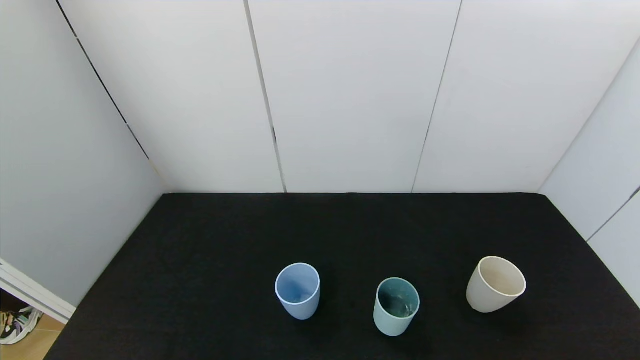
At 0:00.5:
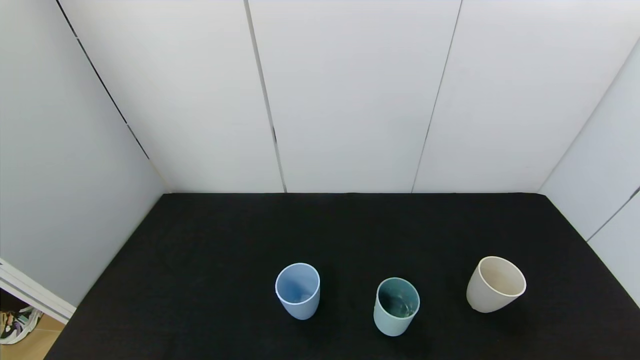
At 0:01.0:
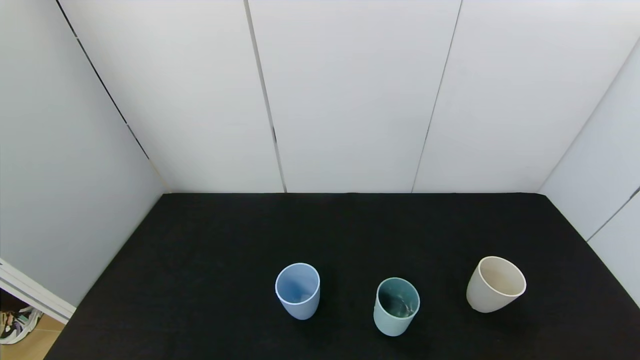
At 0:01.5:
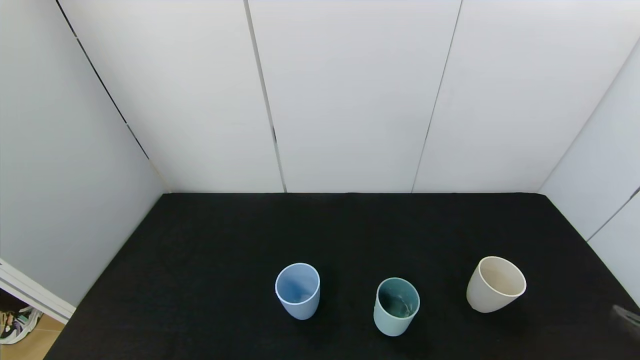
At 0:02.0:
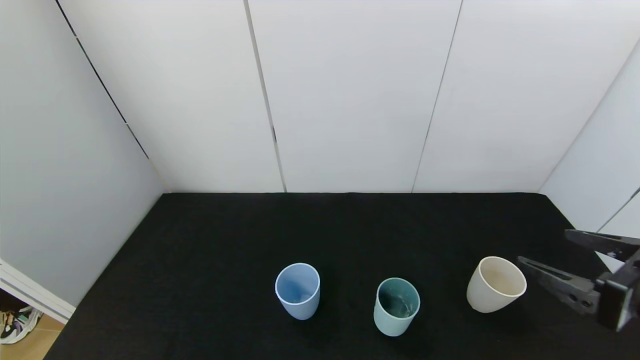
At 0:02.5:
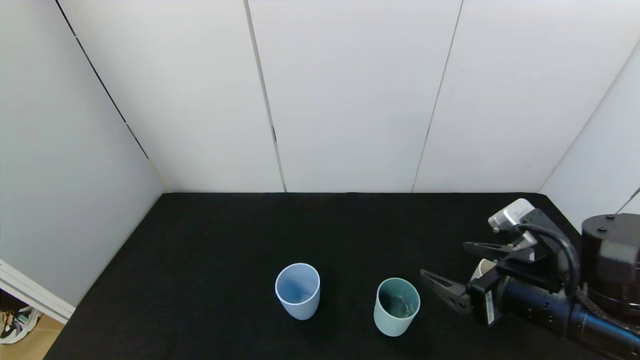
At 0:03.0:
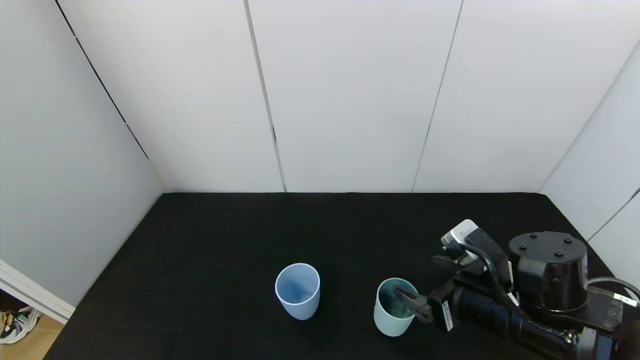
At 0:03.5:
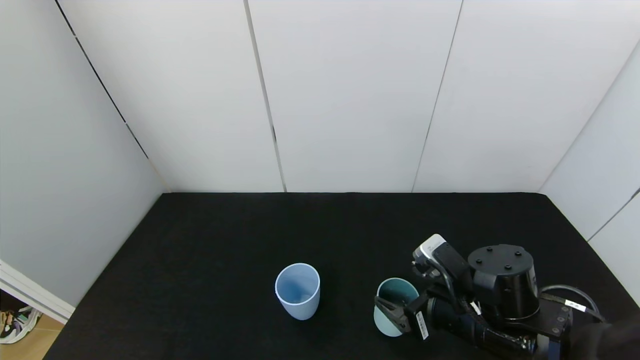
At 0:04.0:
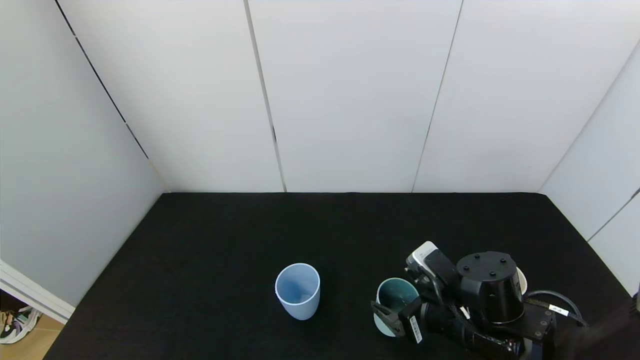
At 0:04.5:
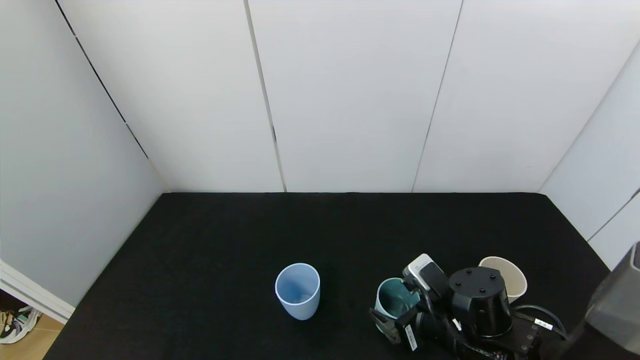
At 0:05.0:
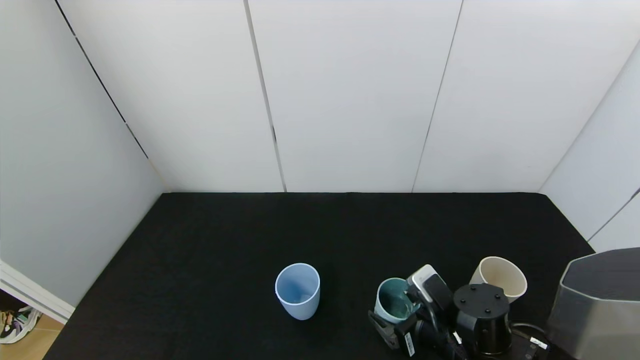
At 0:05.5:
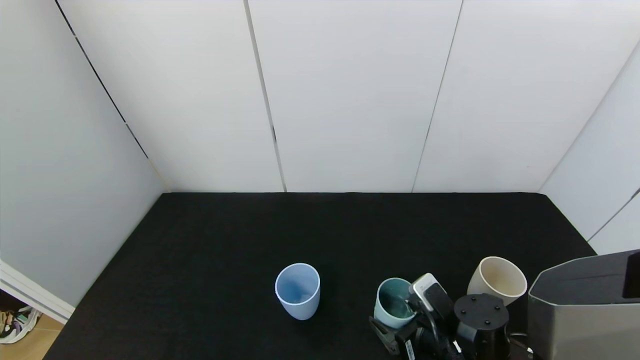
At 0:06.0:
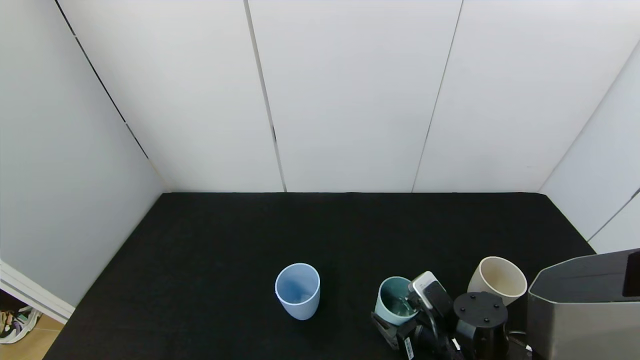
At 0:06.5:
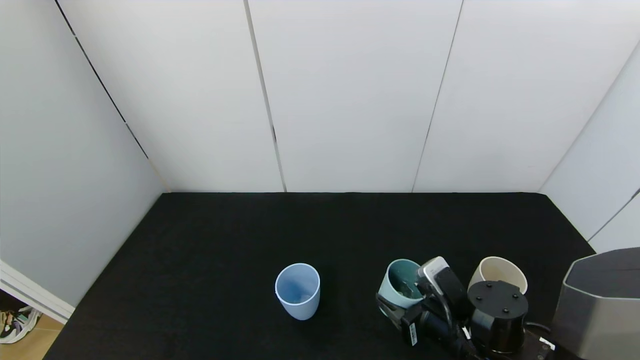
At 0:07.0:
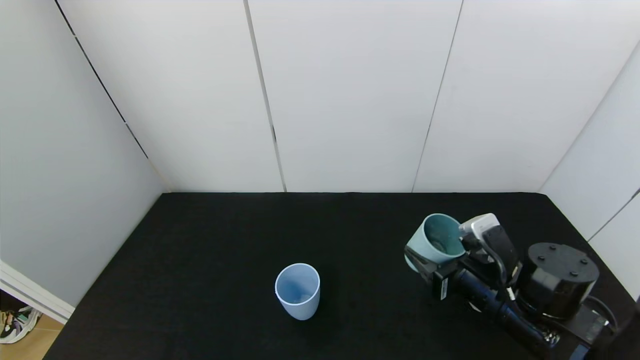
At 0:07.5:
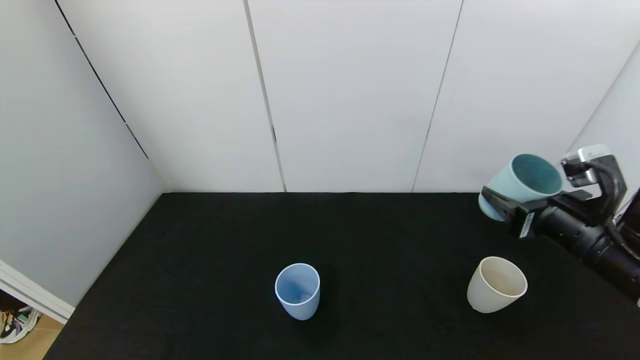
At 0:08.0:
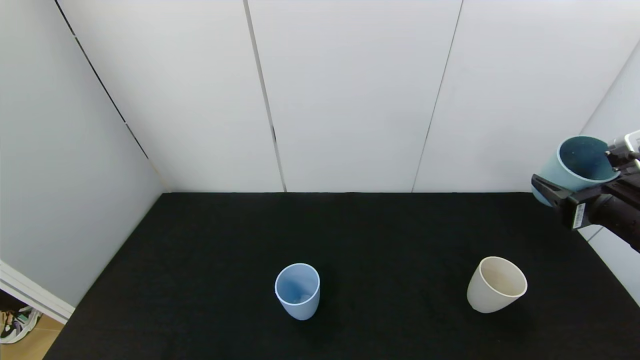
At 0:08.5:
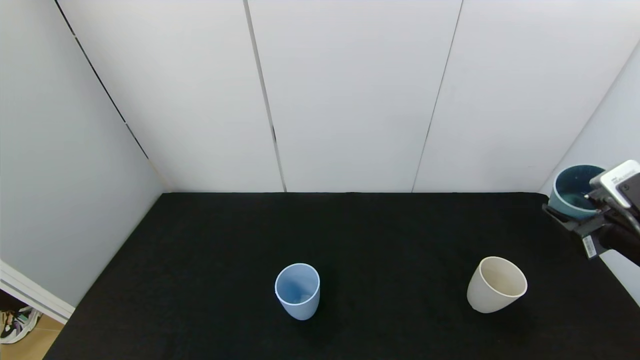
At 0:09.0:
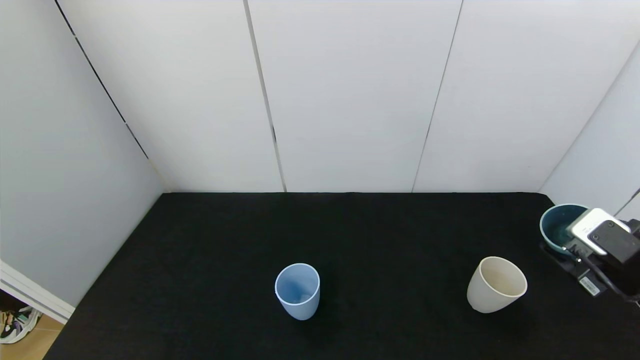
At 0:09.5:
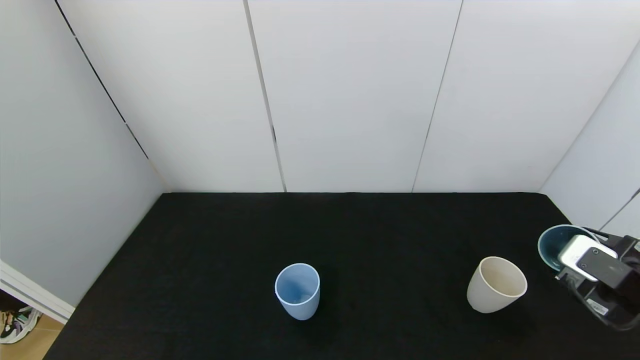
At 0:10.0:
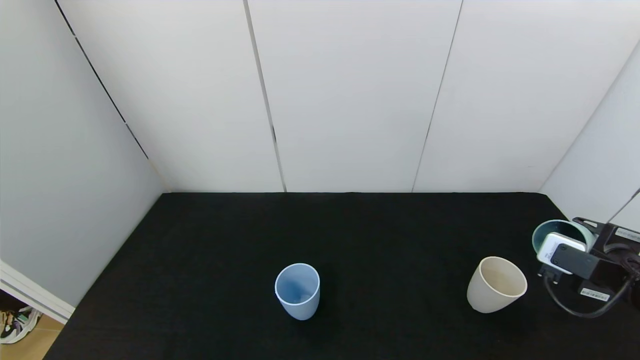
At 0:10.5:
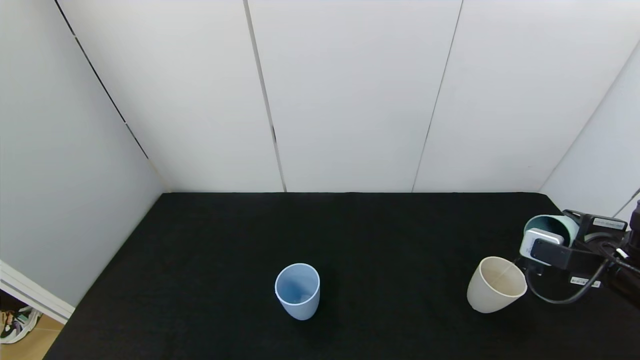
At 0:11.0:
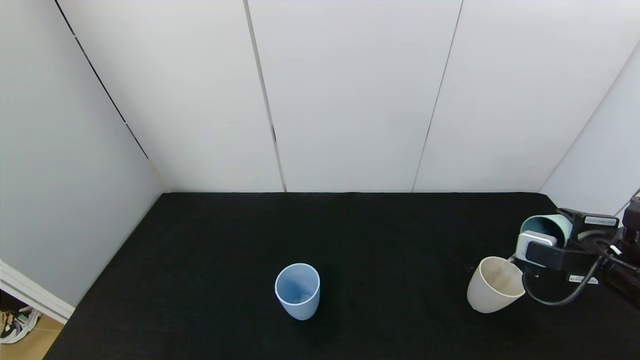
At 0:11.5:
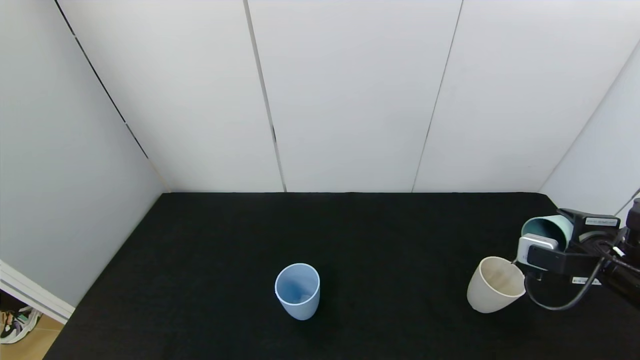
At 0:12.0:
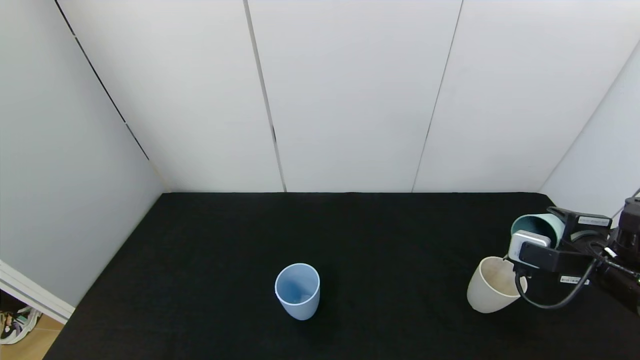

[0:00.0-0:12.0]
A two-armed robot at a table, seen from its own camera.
Task of the whole recording: use the gripper to pour the water into the other two cups on black table.
Step, 0:00.0 to 0:06.0: Grasp the green cup with the right gripper.
0:00.0 to 0:02.0: The right gripper shifts roughly 20 cm forward and upward.
0:02.0 to 0:04.0: The right gripper goes roughly 20 cm to the left, downward and forward.
0:04.0 to 0:06.0: The right gripper moves downward, approximately 5 cm, and closes its fingers.
0:06.0 to 0:08.0: The right gripper moves upward and to the right, approximately 25 cm, and closes its fingers.
0:08.0 to 0:10.0: The right gripper is displaced downward by roughly 5 cm.
0:10.0 to 0:12.0: The grippers move only a little.

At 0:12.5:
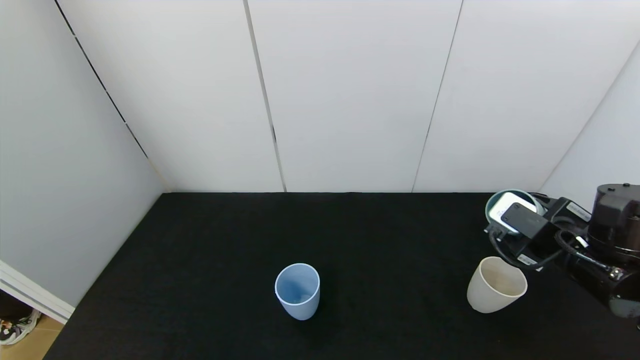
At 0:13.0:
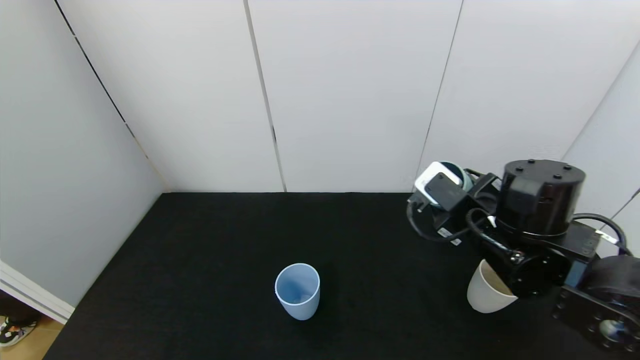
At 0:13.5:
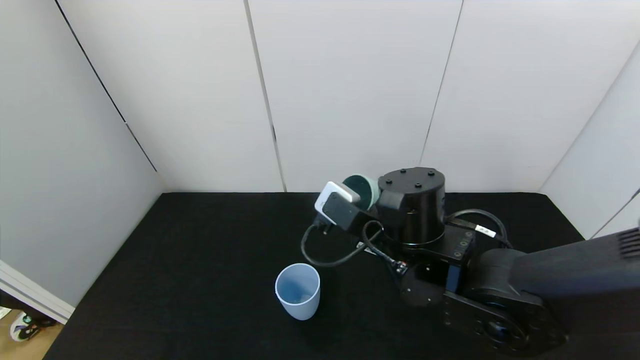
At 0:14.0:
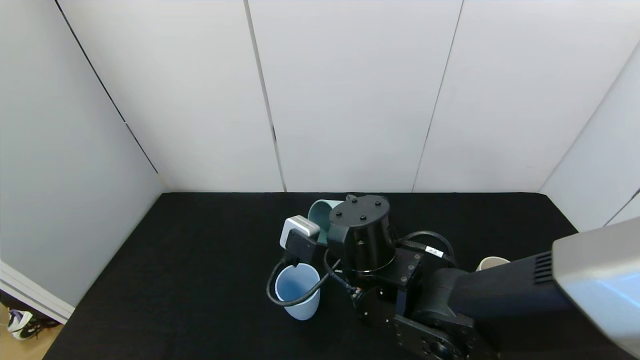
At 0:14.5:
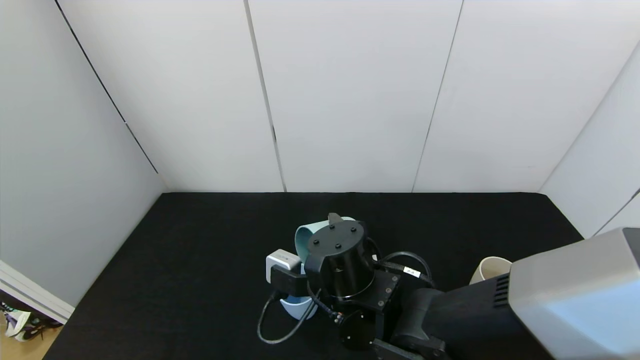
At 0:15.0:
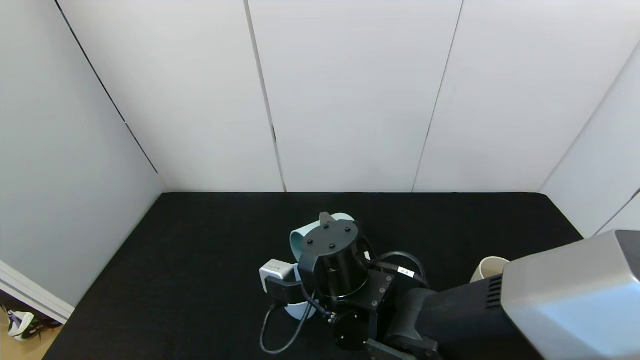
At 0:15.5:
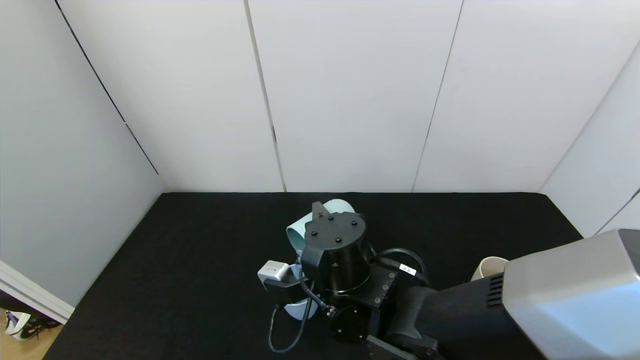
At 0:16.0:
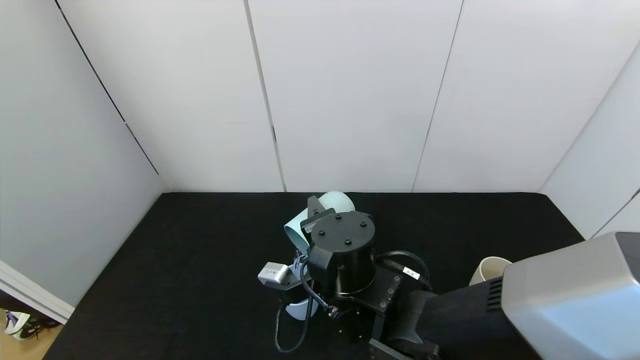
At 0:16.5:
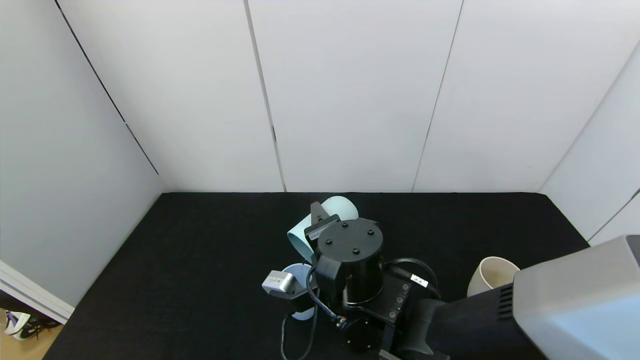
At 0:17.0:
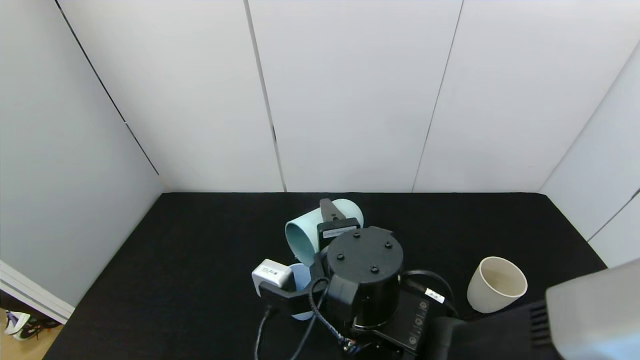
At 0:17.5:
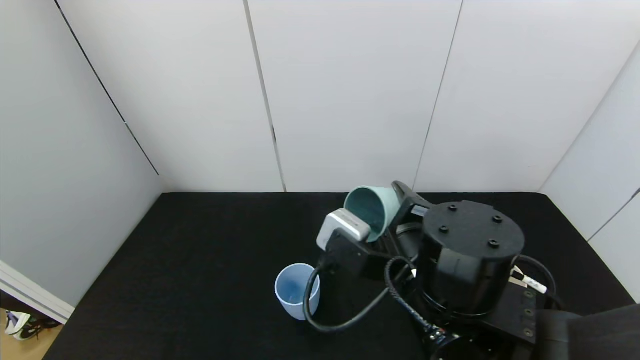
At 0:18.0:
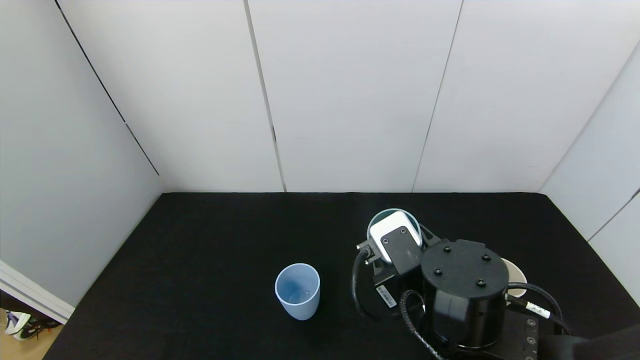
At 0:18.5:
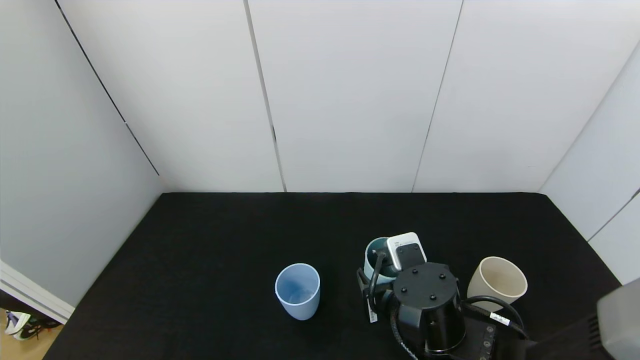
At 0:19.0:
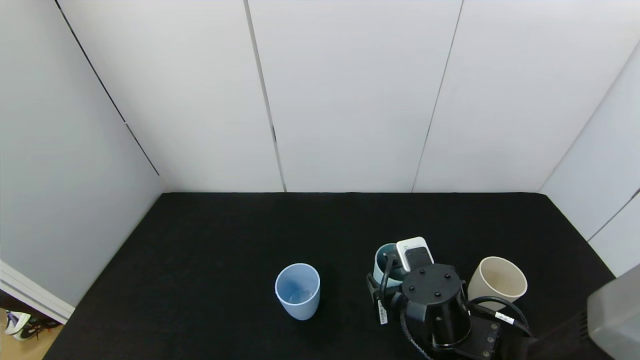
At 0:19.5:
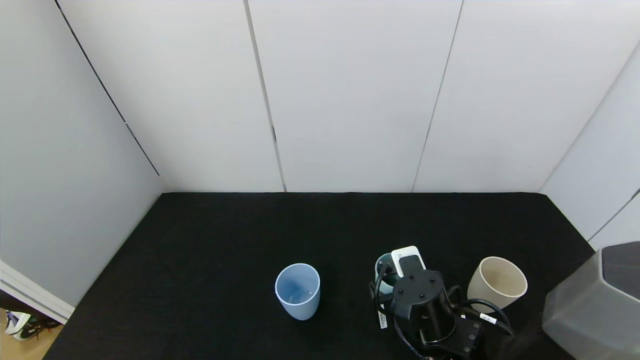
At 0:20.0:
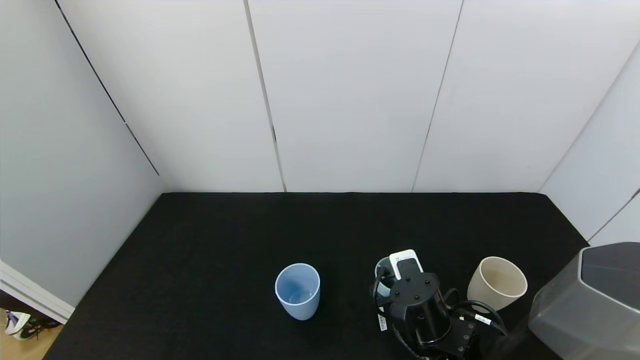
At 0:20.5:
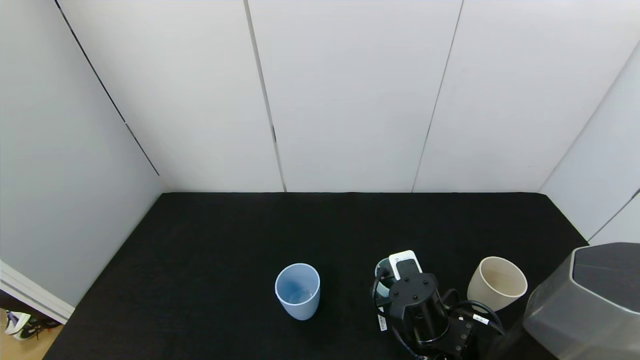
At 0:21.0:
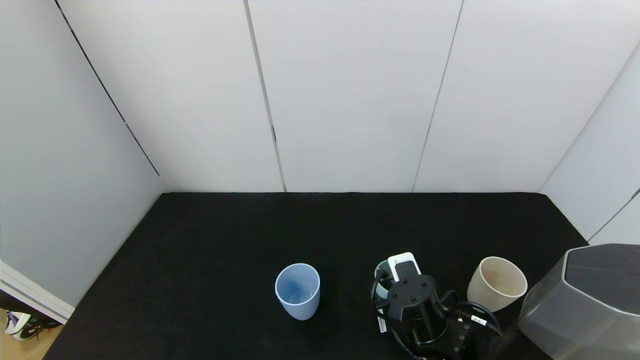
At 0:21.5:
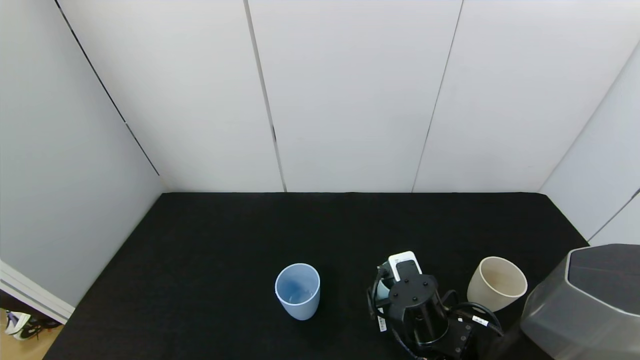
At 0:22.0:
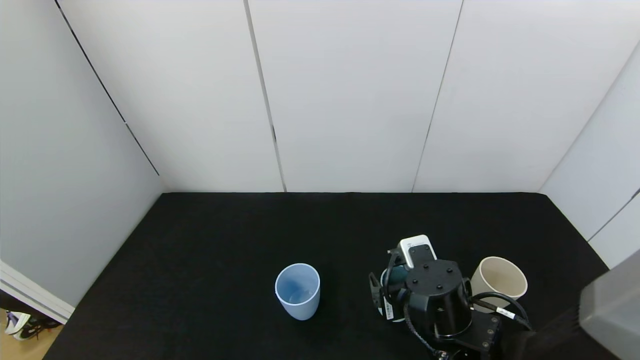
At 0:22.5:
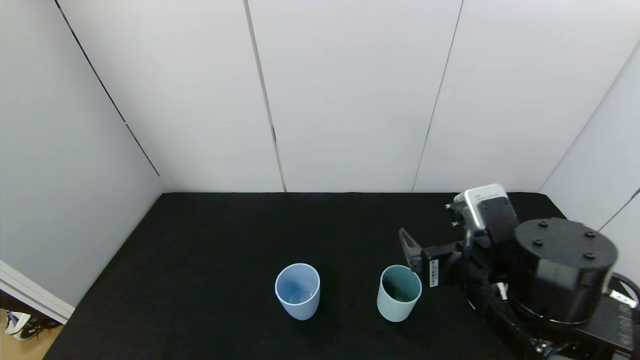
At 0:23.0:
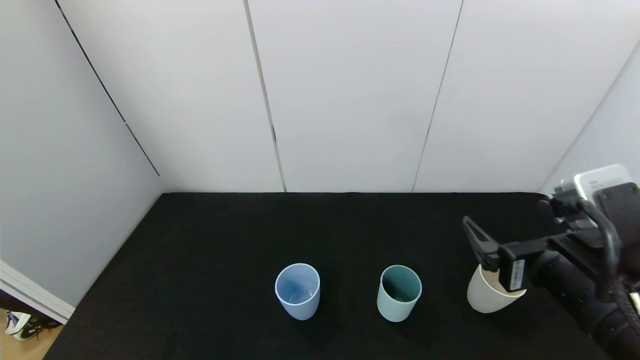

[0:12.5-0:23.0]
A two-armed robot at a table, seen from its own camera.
Task of the whole recording: use the gripper to pour the water into the other two cups on black table.
Step, 0:13.0 to 0:17.0: Pour water from green cup to blue cup with the right gripper.
Step, 0:17.5 to 0:22.0: Place the green cup with the right gripper.
0:12.5 to 0:14.5: The right gripper shifts approximately 30 cm to the left.
0:16.5 to 0:19.0: The right gripper moves to the right and downward, roughly 10 cm.
0:19.0 to 0:21.0: There are only small adjustments of the grippers.
0:21.0 to 0:23.0: The right gripper is displaced upward, to the right and backward by roughly 20 cm, and opens its fingers.
